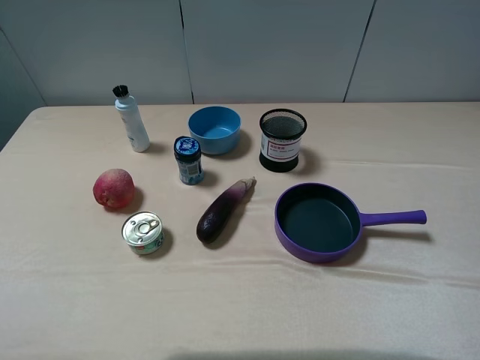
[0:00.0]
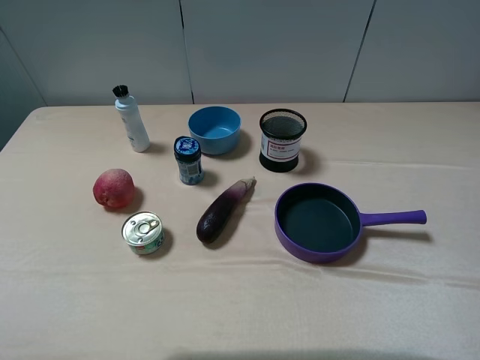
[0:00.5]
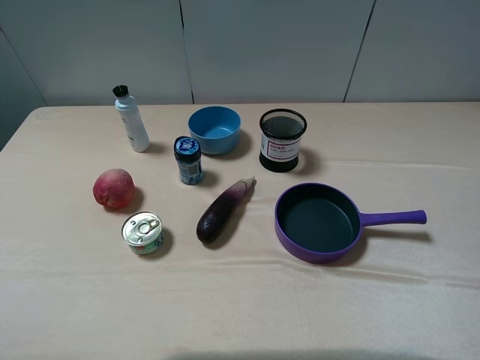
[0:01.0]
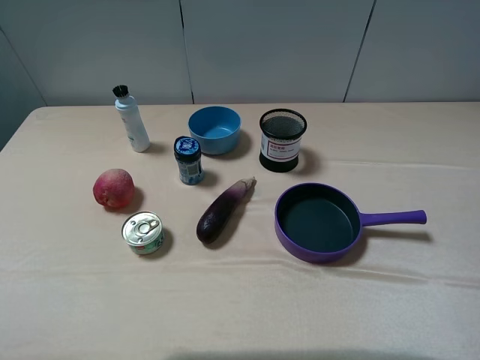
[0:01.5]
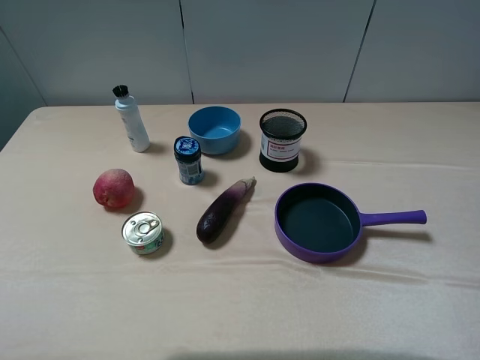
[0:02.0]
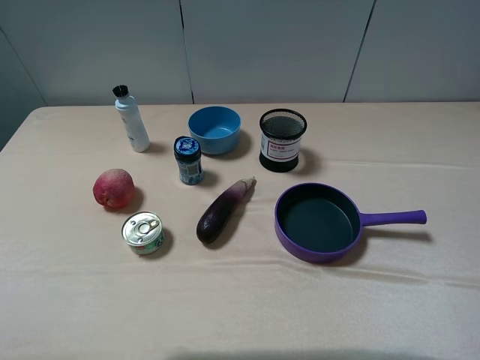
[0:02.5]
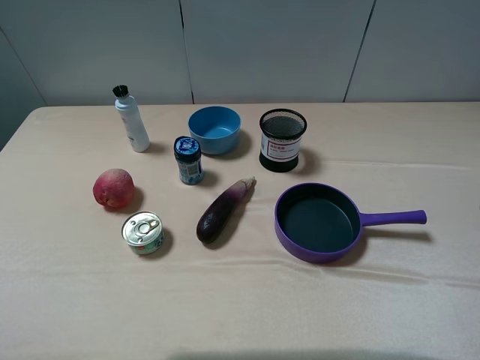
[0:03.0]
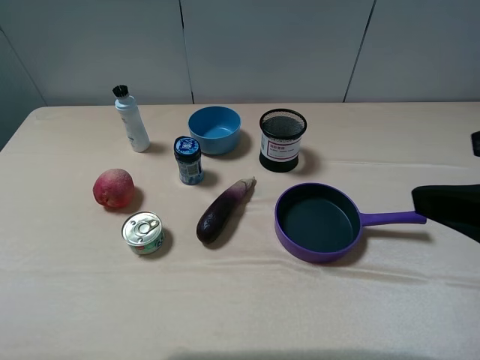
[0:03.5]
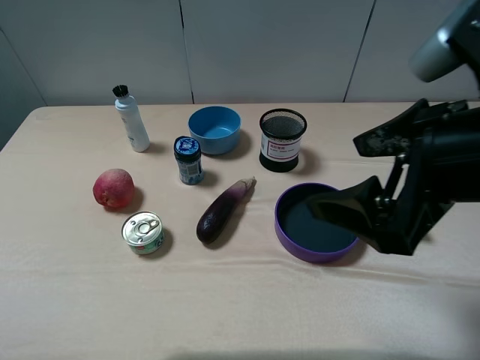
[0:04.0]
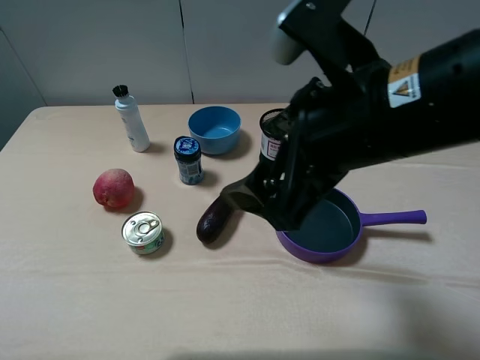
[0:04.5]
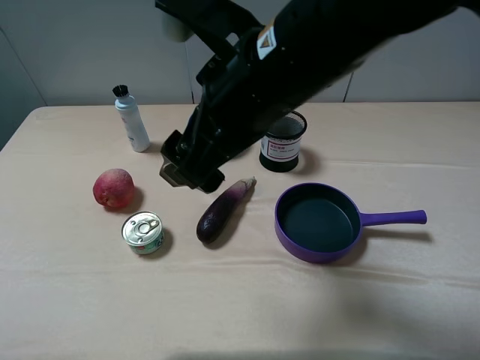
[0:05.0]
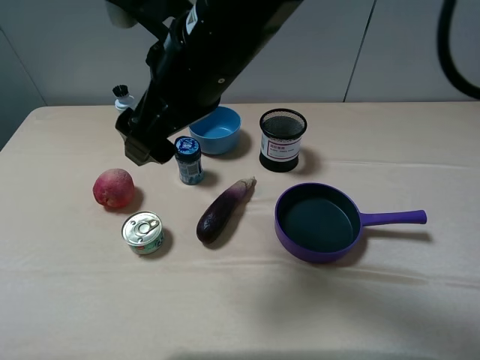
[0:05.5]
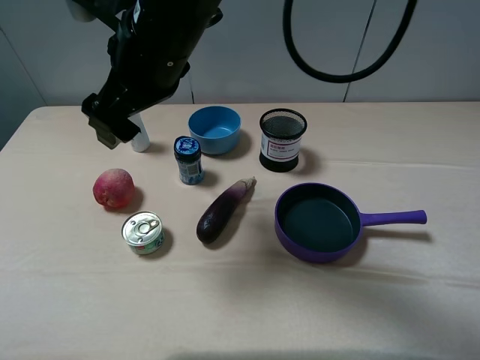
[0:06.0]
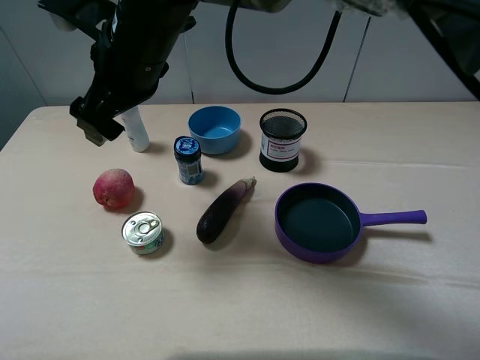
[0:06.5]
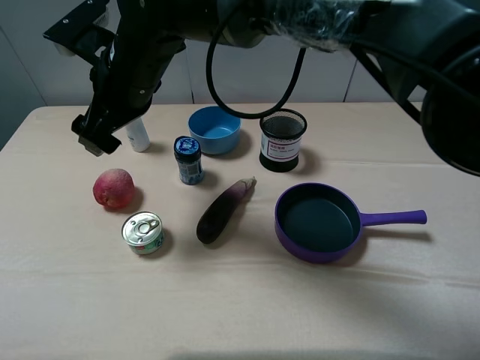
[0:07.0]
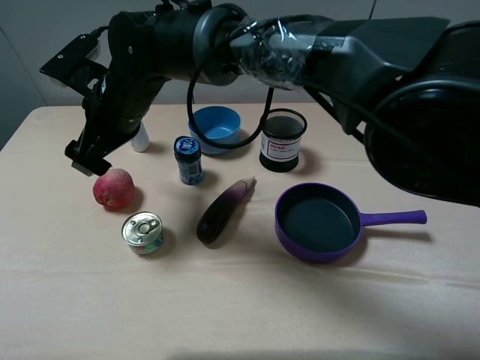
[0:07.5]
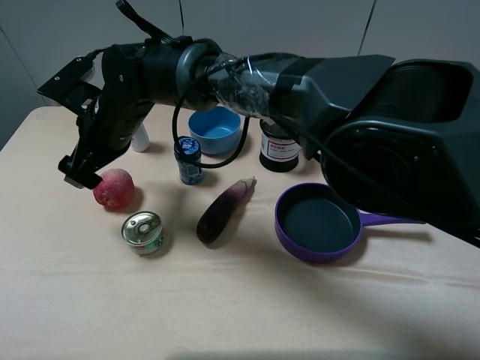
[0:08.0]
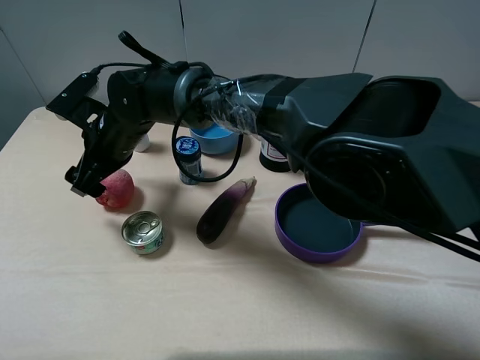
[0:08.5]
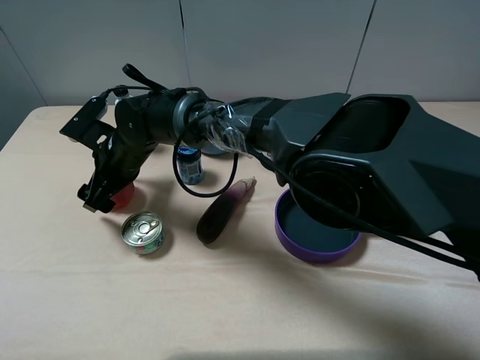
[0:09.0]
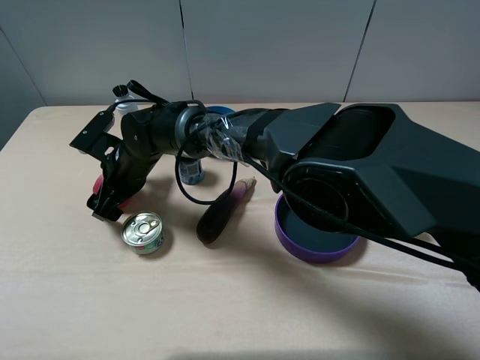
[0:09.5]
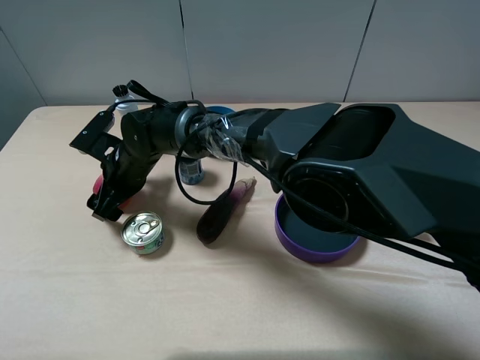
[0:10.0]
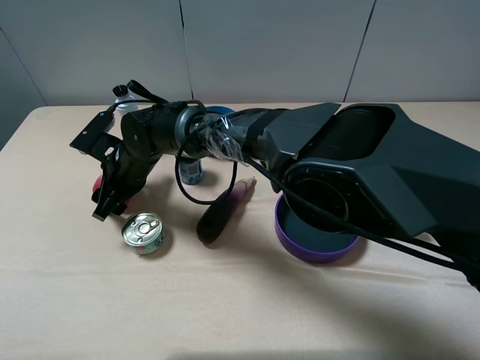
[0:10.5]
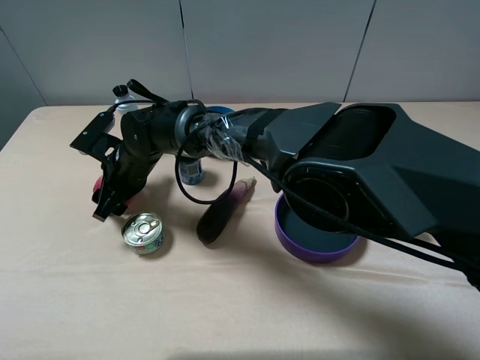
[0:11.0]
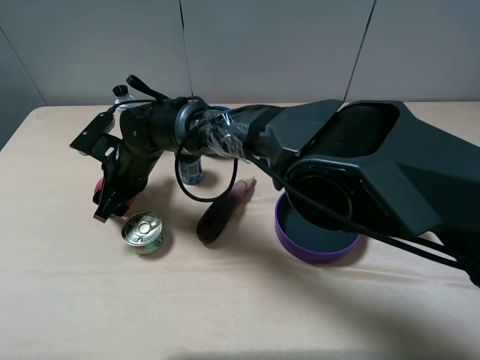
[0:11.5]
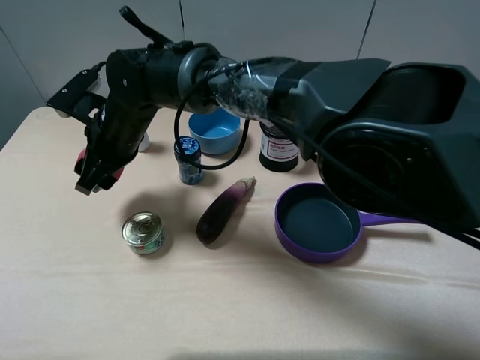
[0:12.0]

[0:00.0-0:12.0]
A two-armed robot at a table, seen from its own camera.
Task of the whole recording: pick up an item with a gripper and place it in a random container on the table.
Step, 0:00.0 to 0:10.5: Grasp the peach with the right gripper.
0:00.0 to 0:02.0: Both grippers stay put.
0:02.0 to 0:04.0: The right gripper travels forward and to the left by some 15 cm.
0:04.0 to 0:06.0: The right gripper heads to the left and forward, covering about 30 cm.
0:06.0 to 0:08.0: The right gripper is displaced downward and to the left by roughly 15 cm.
0:08.0 to 0:10.0: The right gripper heads downward, covering about 10 cm.
0:10.0 to 0:12.0: The right gripper is displaced upward by roughly 10 cm, and closes its fingers.

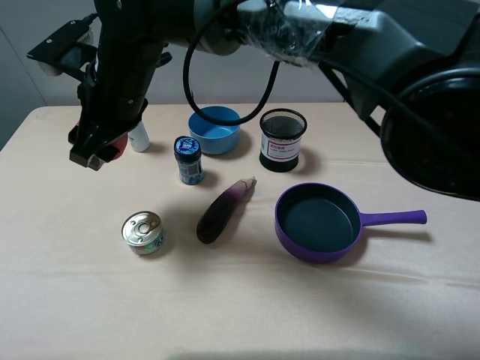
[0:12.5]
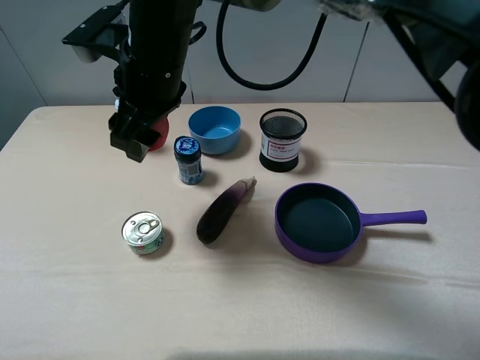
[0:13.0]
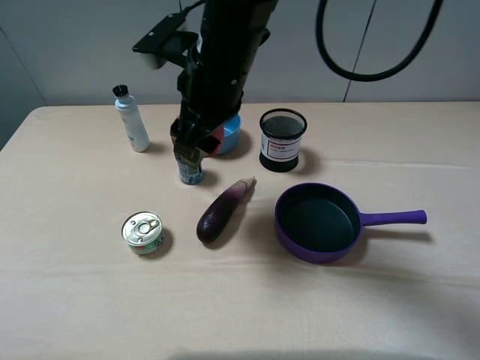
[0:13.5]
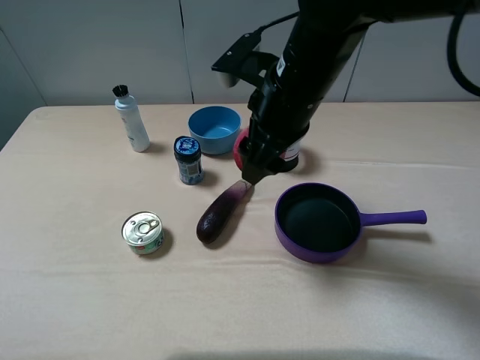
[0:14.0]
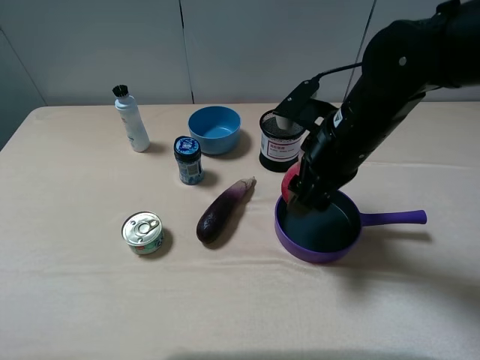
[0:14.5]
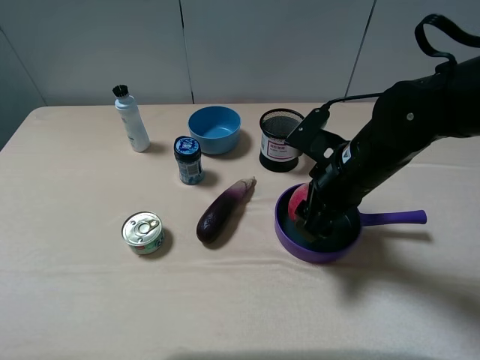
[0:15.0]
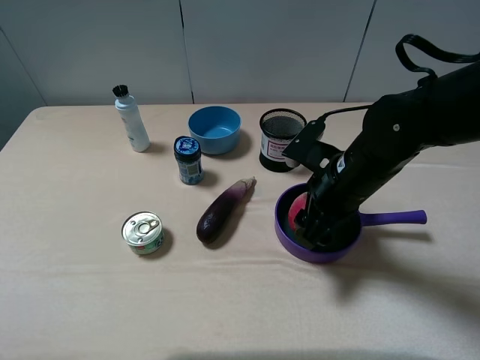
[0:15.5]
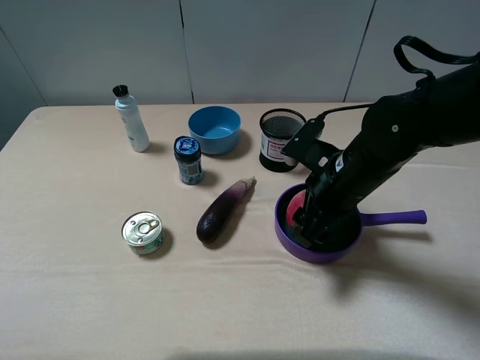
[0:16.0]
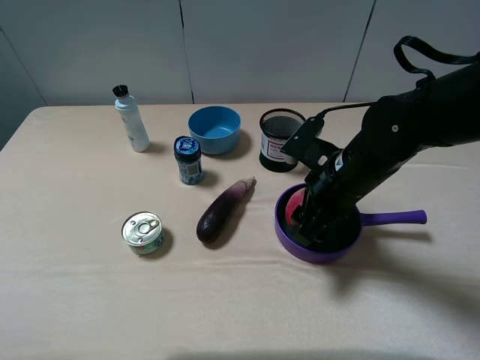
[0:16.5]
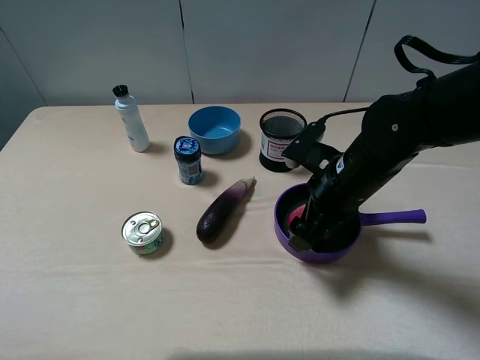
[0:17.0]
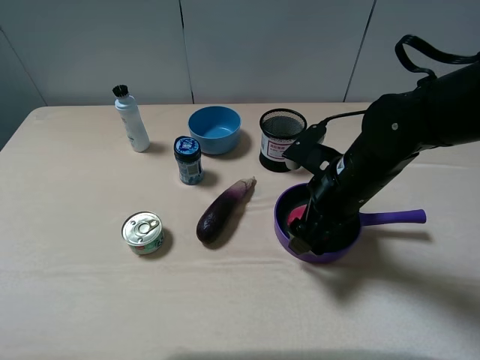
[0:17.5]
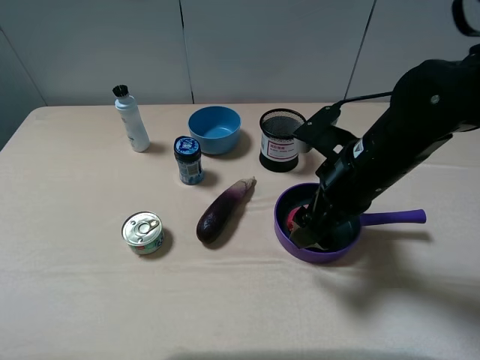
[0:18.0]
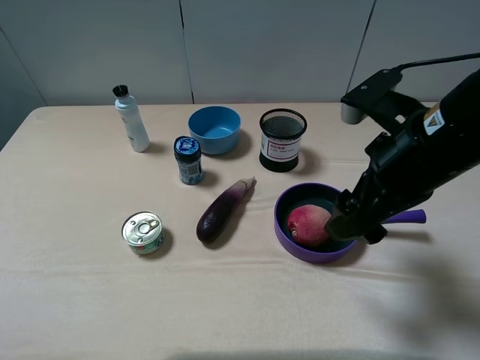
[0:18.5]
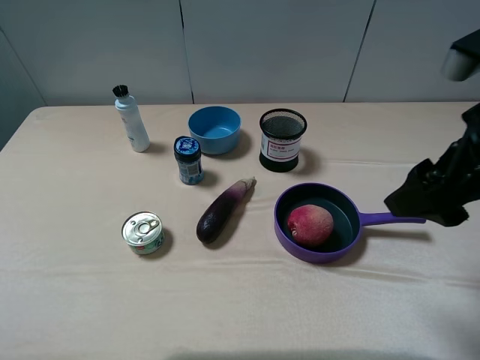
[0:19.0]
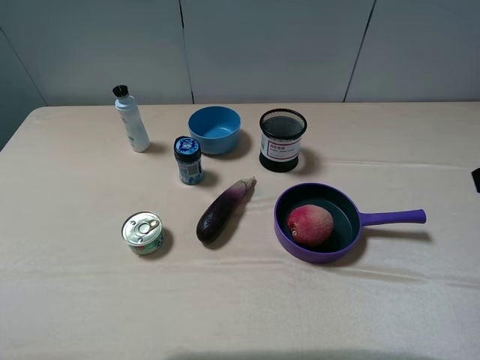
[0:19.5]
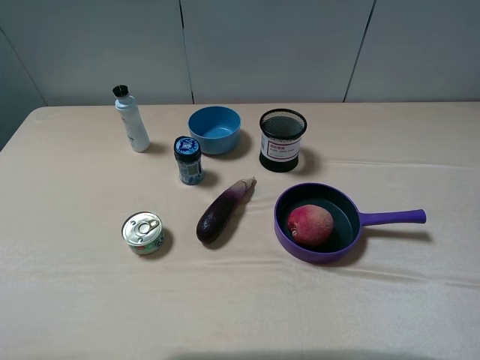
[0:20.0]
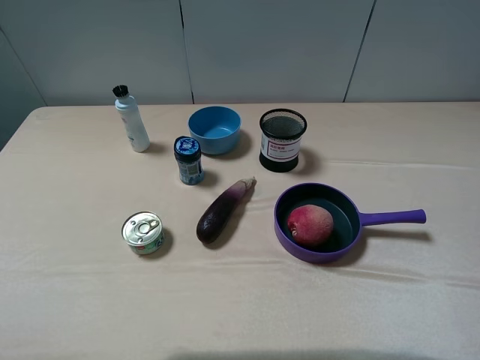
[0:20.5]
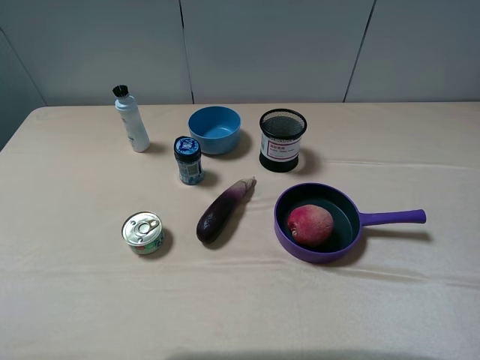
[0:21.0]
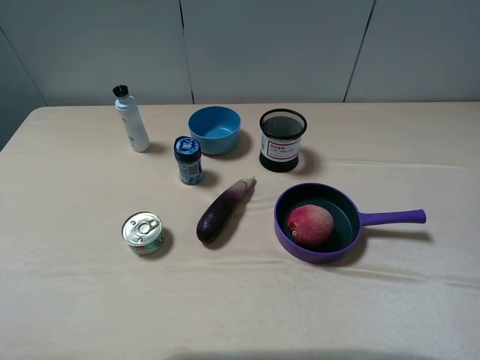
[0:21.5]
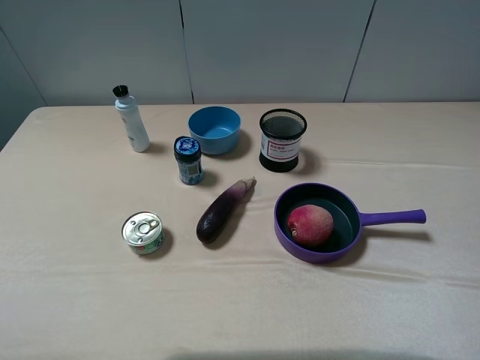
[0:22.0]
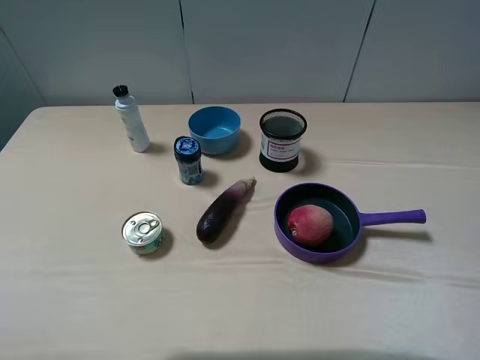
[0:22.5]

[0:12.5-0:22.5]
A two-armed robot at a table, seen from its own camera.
Task of the whole recording: pick up an item with a gripper and place it in a random container on the table.
Step, 0:12.5 to 0:17.0: Place the peach into the purple pot with the right gripper.
0:12.5 to 0:14.5: The right gripper is displaced to the right by about 25 cm.
0:14.5 to 0:16.5: The grippers stay close to where they were, moving slightly.
0:16.5 to 0:18.5: The right gripper moves upward and backward, roughly 10 cm, and opens up.
0:18.5 to 0:20.5: The right gripper is displaced backward and to the right by some 20 cm.
